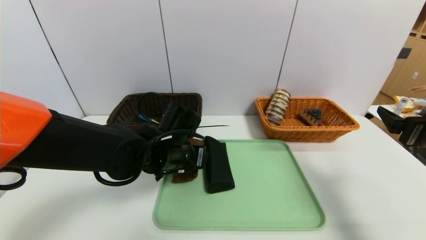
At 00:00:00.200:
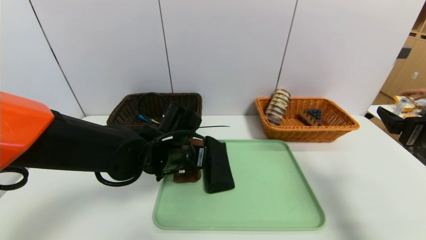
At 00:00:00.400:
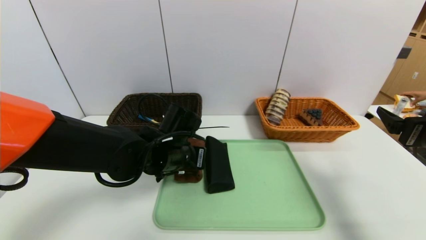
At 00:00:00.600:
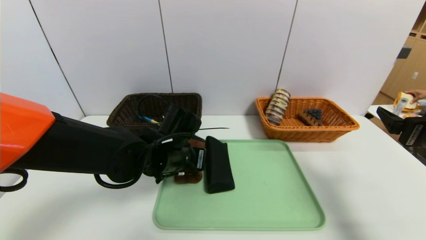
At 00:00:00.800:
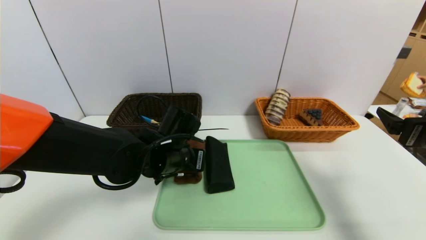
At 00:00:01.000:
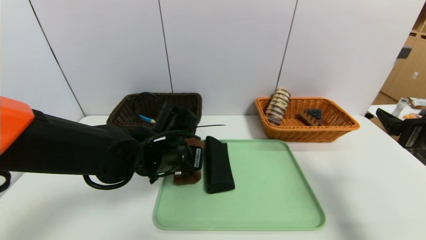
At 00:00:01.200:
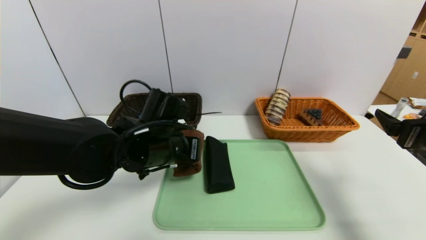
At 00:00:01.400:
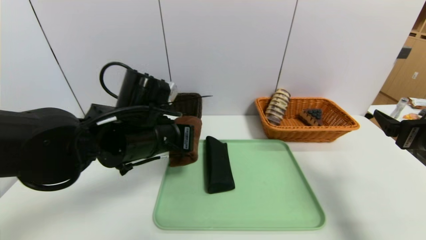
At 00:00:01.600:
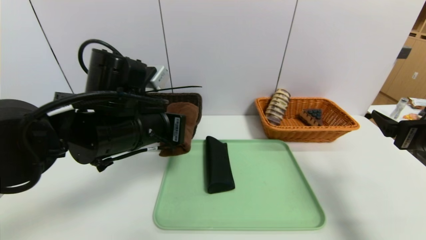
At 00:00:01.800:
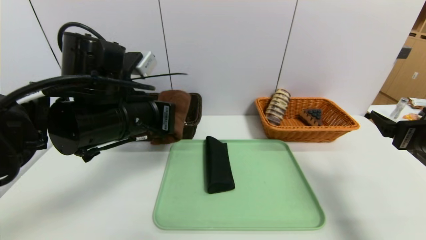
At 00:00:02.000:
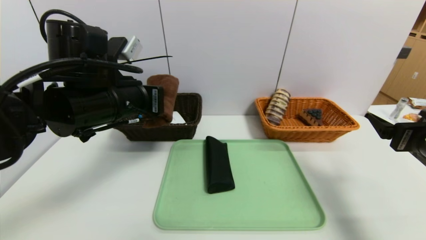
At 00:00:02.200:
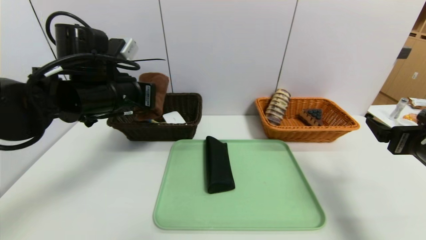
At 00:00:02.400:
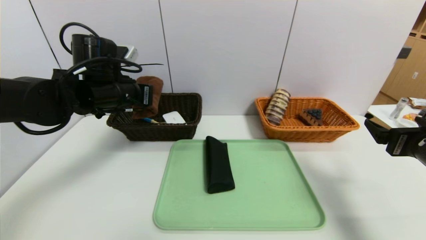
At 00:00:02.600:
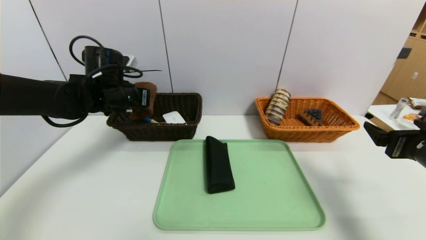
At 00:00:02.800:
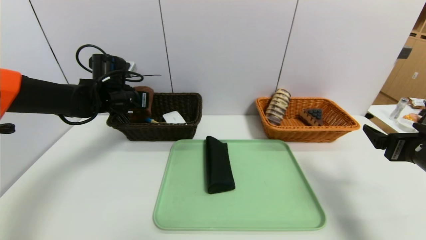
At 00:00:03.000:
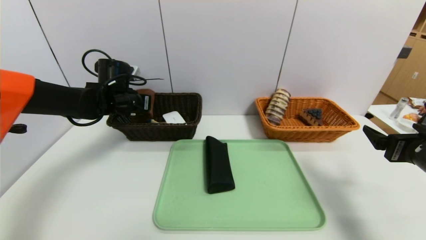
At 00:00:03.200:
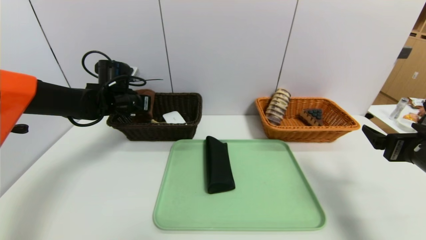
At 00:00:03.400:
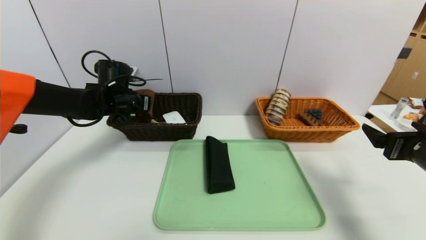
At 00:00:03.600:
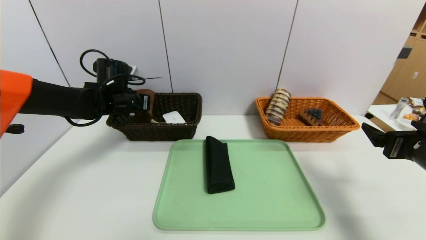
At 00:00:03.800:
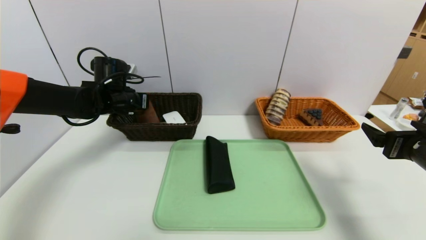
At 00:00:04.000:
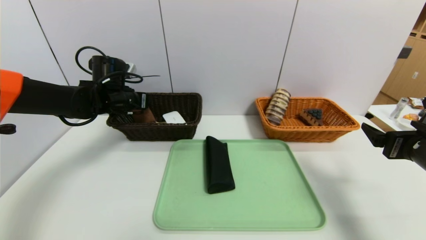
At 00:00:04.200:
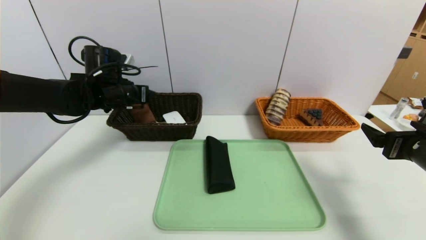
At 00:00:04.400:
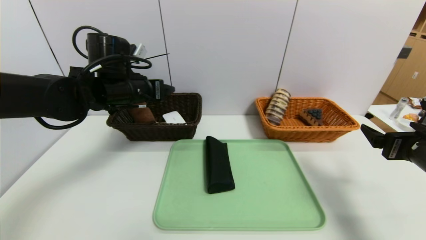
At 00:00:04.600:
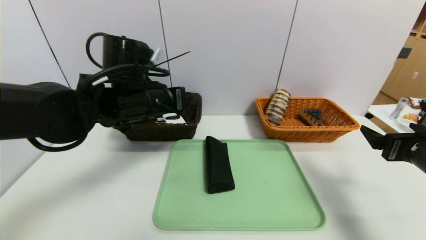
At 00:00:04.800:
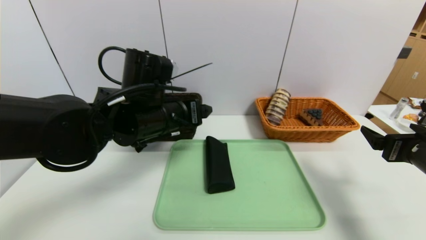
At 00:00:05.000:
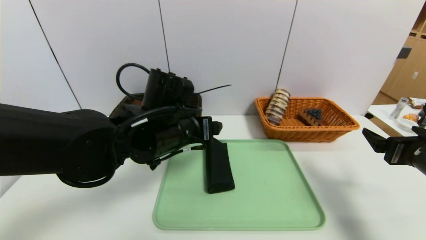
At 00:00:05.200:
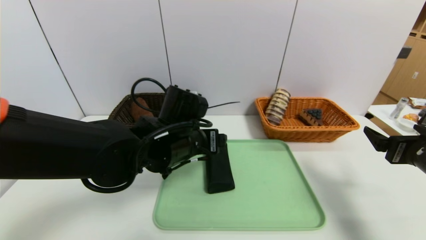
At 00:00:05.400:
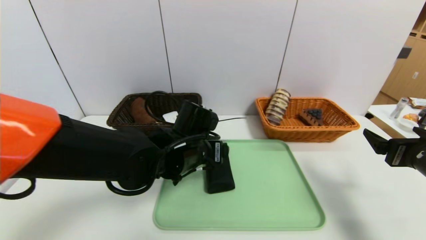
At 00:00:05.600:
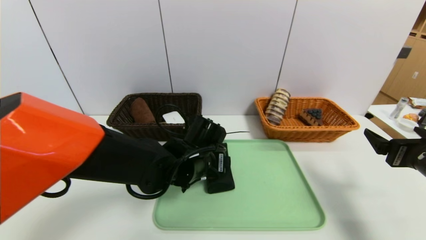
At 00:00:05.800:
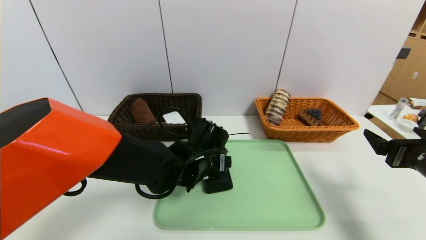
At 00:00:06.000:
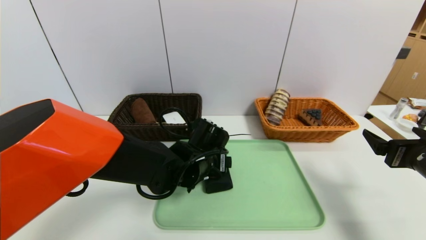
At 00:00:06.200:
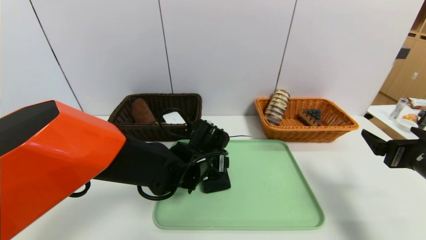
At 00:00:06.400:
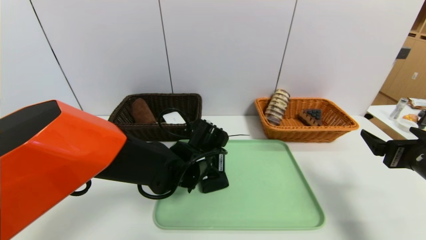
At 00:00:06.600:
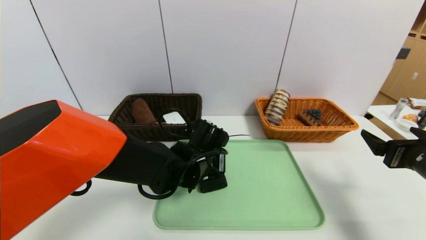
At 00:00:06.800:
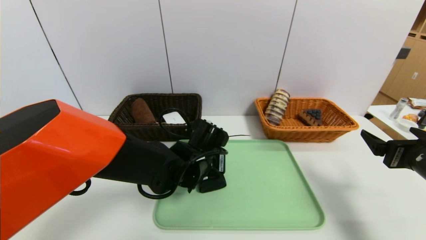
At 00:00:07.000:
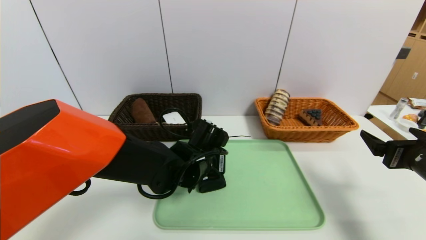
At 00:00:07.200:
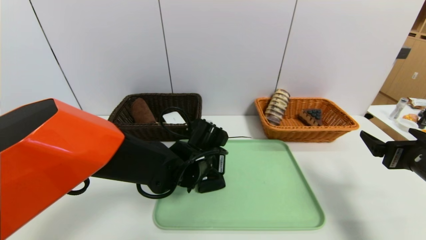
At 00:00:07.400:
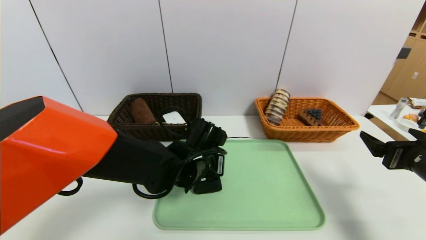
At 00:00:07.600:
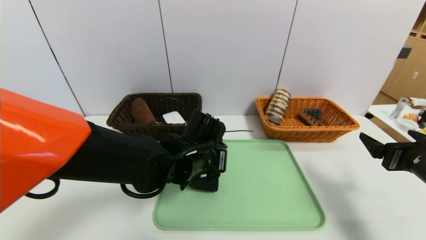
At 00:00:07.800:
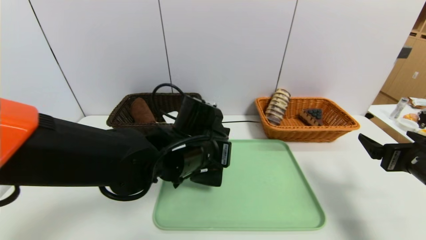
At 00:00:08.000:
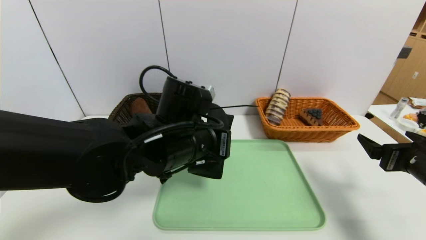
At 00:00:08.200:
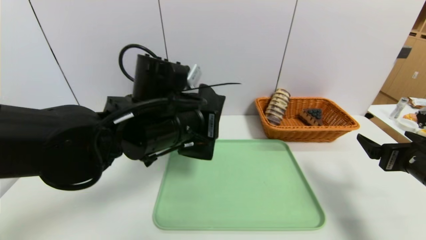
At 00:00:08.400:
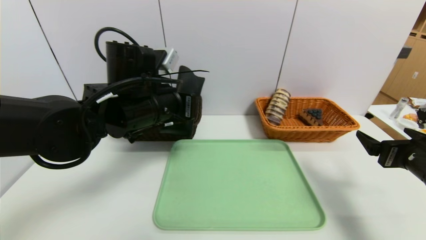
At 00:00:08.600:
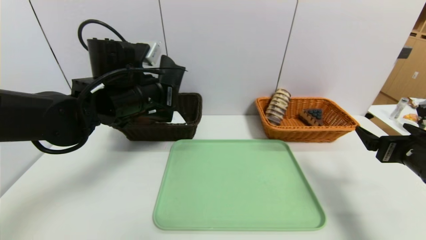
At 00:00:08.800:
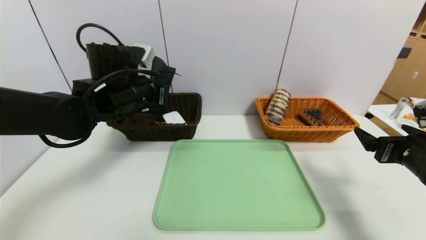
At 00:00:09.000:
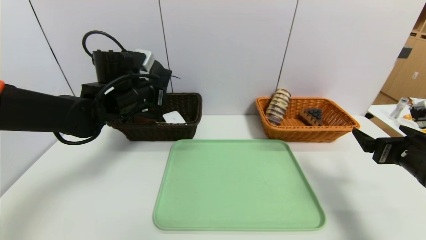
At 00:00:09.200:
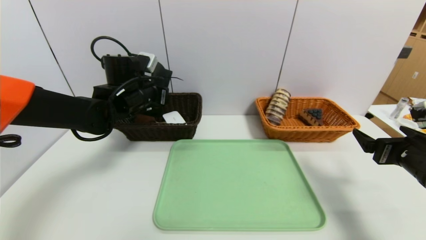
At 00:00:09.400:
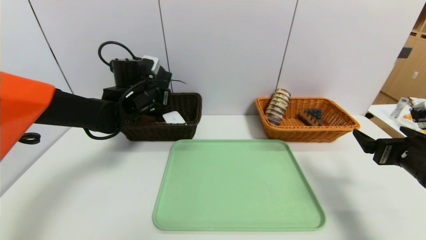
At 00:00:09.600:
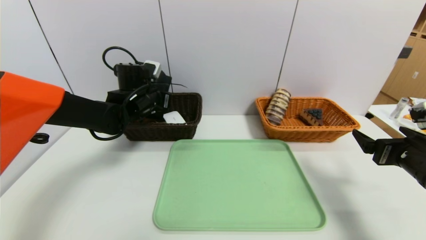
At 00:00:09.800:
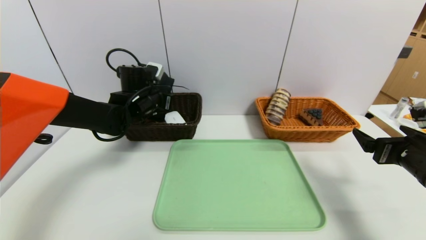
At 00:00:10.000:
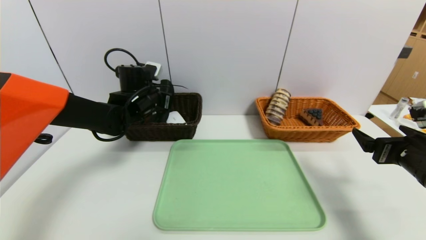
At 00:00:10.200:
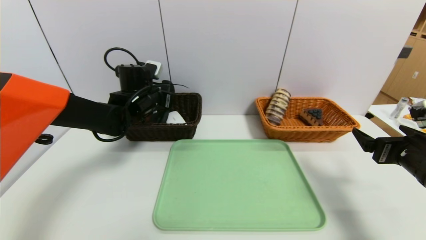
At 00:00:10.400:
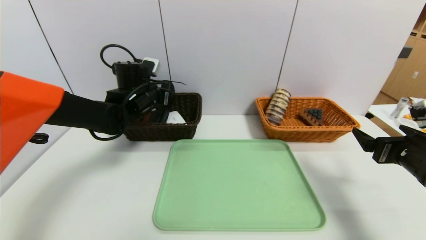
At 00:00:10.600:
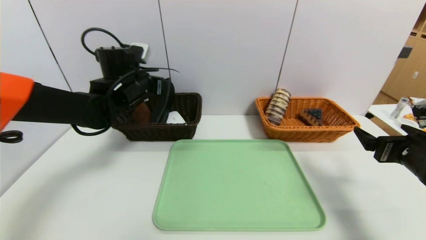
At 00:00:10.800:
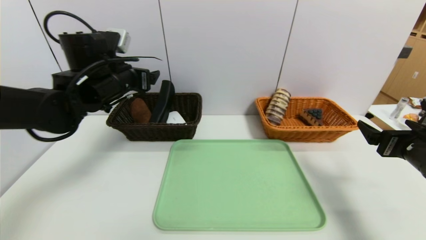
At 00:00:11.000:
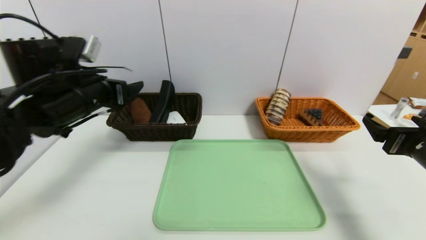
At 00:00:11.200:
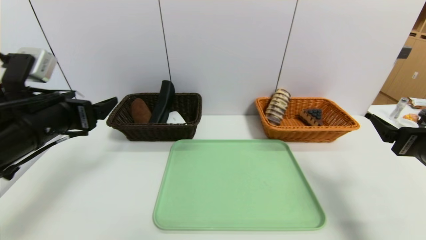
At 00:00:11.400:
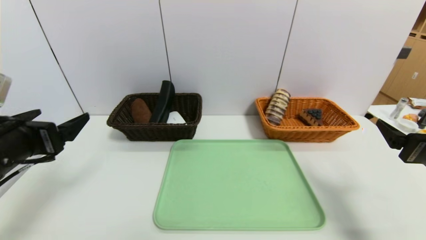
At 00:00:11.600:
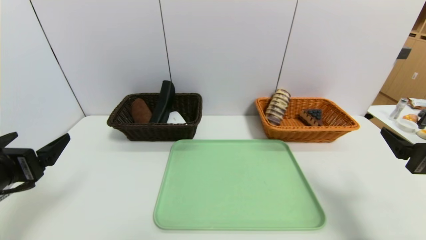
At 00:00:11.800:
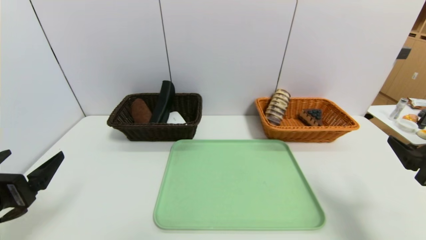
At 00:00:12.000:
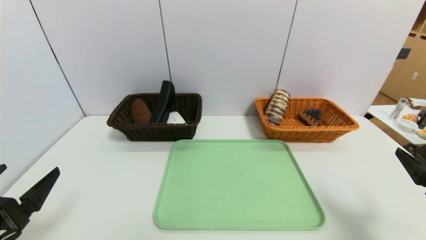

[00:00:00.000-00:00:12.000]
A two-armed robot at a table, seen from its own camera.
Task of the whole recording: place the food in the right basket with the right gripper, and place the non food items in the left basket with the left gripper.
Step, 00:00:00.000 to 00:00:04.000: Grasp the brown towel and put it in the left basket.
Step, 00:00:04.200 to 00:00:10.600: Grasp the glasses case and put it in the left basket.
00:00:00.000 to 00:00:01.600: The left gripper shifts some 10 cm upward and backward, and closes.
00:00:01.600 to 00:00:03.000: The left gripper goes about 20 cm forward and to the left.
00:00:03.000 to 00:00:04.400: The left gripper moves backward, to the right and upward, some 10 cm, and opens its fingers.
00:00:04.400 to 00:00:06.000: The left gripper is displaced downward and to the right by about 20 cm.
00:00:06.000 to 00:00:07.600: The left gripper closes its fingers.
00:00:07.600 to 00:00:09.000: The left gripper shifts some 20 cm to the left, forward and upward.
00:00:09.000 to 00:00:10.400: The left gripper moves roughly 5 cm, and opens up.
00:00:10.400 to 00:00:12.000: The left gripper shifts roughly 35 cm backward. The right gripper is displaced backward by about 10 cm.

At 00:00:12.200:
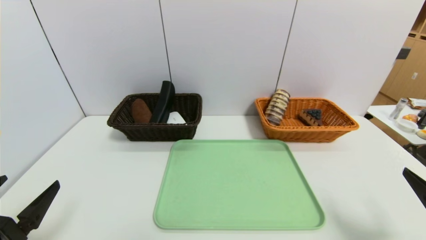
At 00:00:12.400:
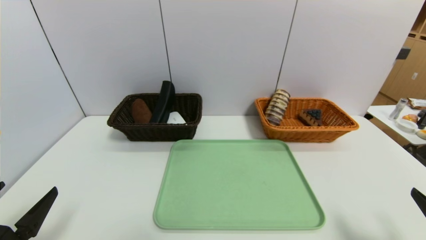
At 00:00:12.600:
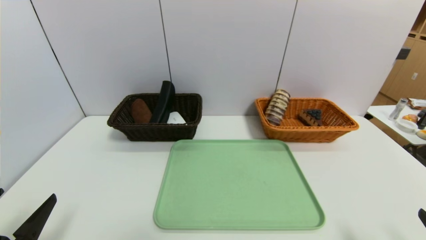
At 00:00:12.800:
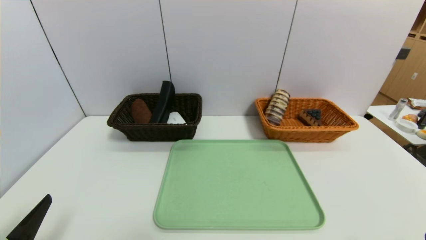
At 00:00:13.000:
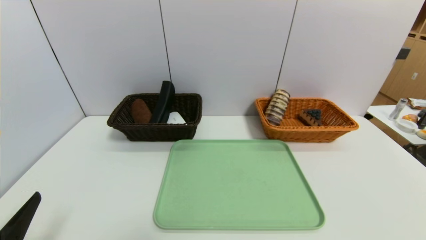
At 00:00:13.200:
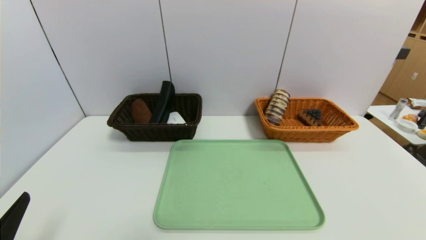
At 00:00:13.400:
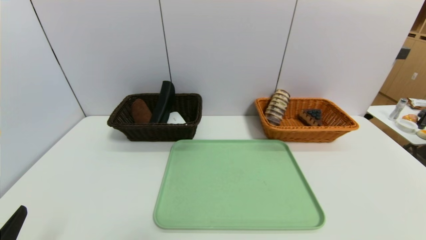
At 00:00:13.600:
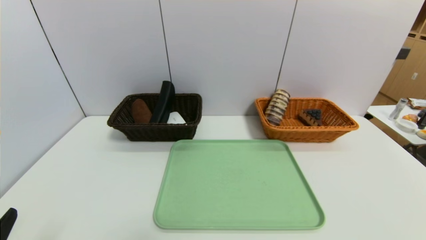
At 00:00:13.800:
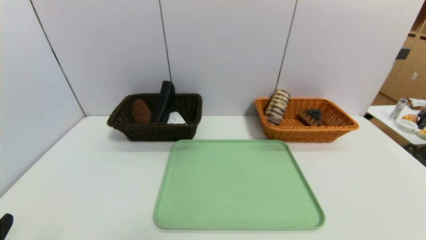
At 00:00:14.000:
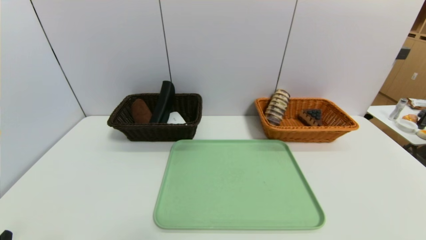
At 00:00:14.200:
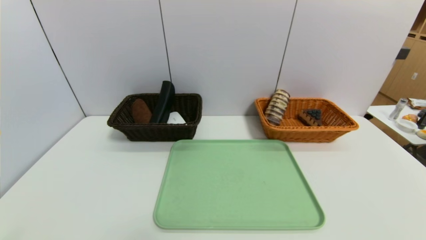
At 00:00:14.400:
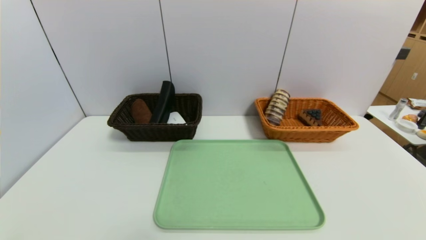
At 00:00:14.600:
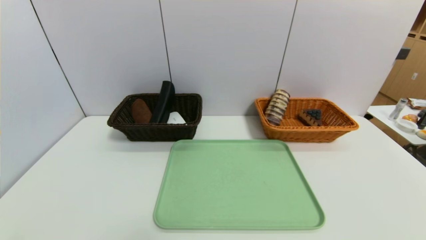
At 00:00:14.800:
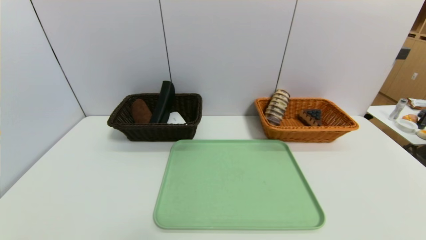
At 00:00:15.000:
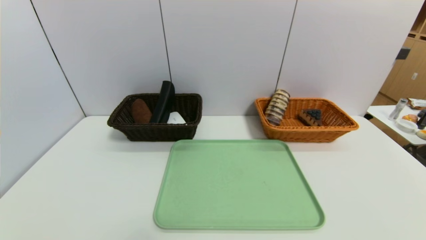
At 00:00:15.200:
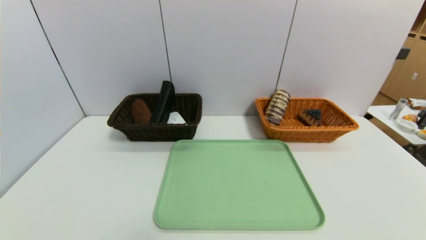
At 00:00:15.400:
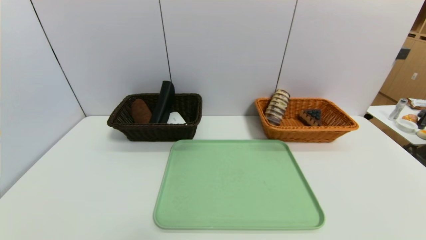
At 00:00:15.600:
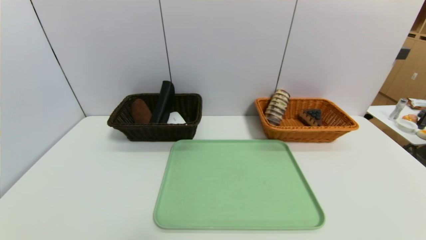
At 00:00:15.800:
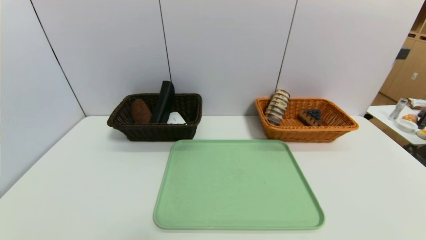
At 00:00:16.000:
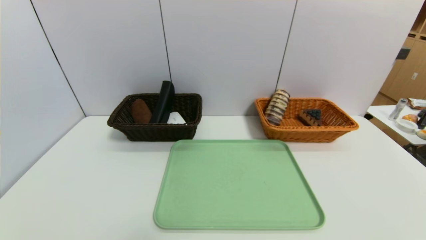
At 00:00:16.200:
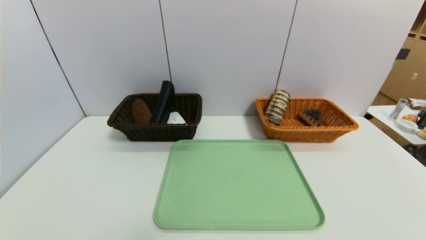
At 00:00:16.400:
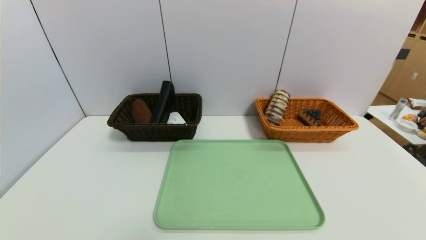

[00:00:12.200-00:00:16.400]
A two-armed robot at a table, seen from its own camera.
Task of the whole recording: place the food in the right basket with the right gripper, and place the non food items in the left basket with the left gripper.
00:00:12.200 to 00:00:13.600: The right gripper travels backward and downward by about 15 cm. Meanwhile the left gripper is displaced backward by approximately 5 cm.
